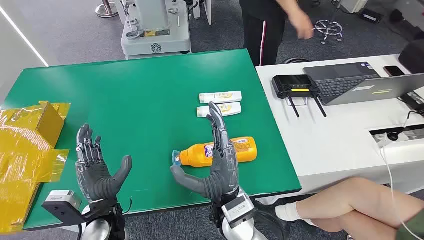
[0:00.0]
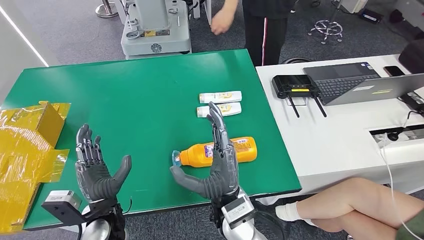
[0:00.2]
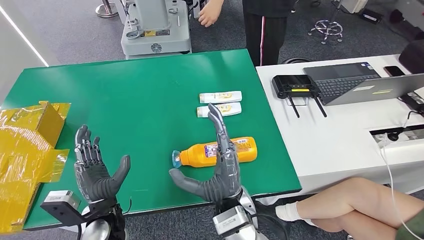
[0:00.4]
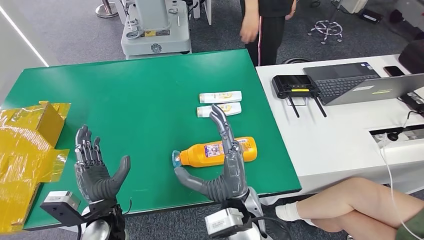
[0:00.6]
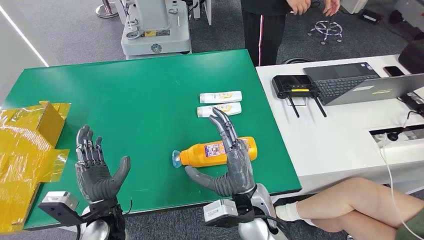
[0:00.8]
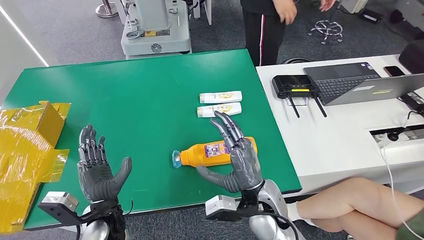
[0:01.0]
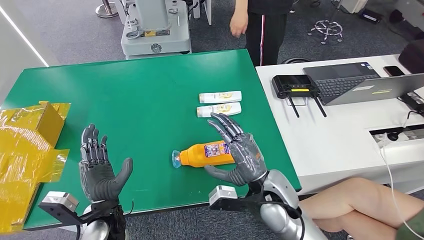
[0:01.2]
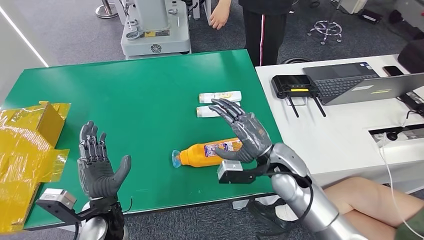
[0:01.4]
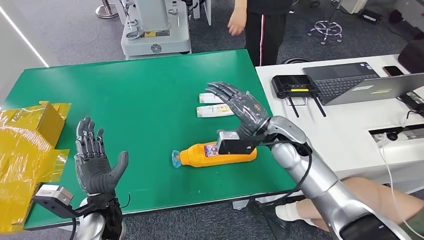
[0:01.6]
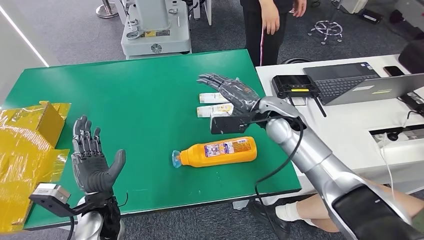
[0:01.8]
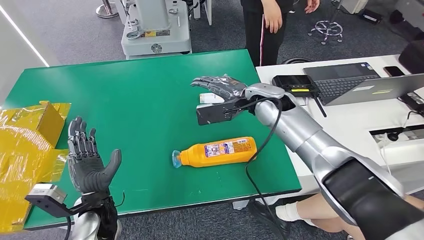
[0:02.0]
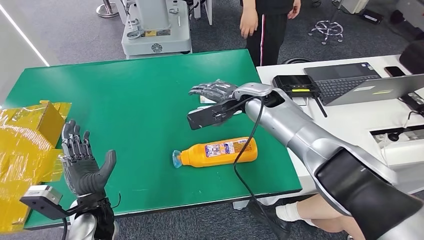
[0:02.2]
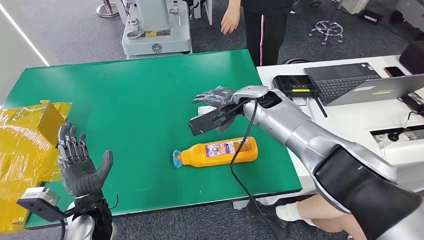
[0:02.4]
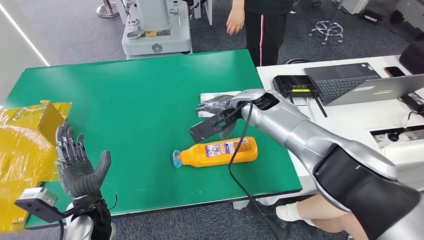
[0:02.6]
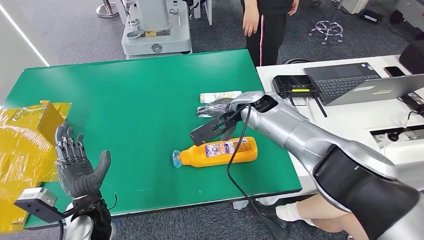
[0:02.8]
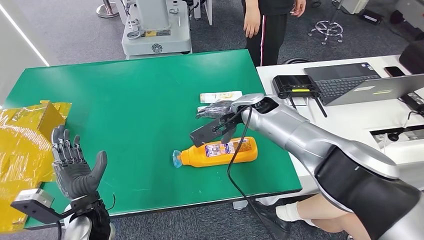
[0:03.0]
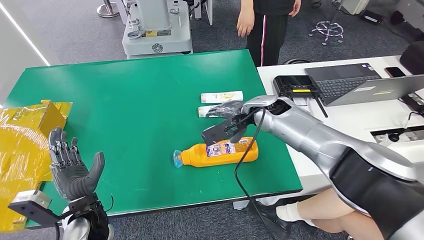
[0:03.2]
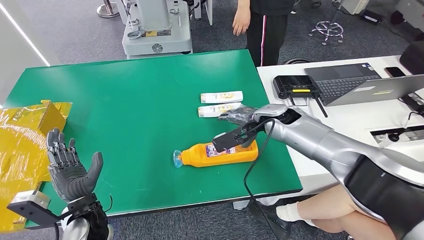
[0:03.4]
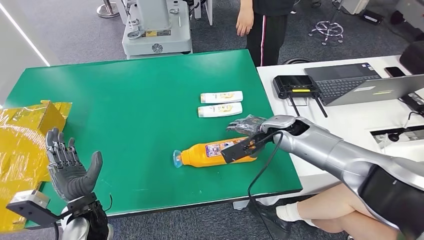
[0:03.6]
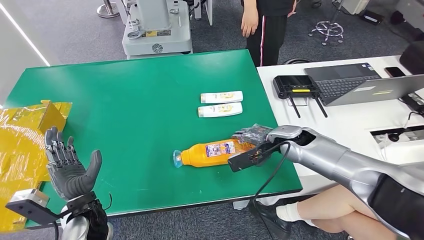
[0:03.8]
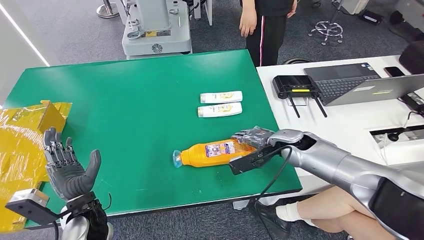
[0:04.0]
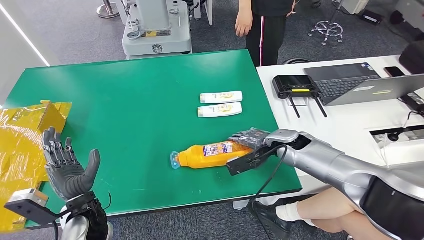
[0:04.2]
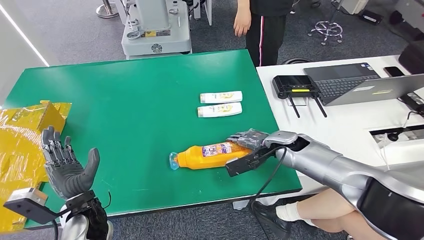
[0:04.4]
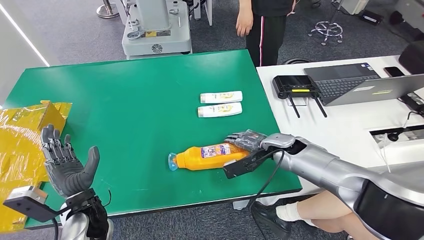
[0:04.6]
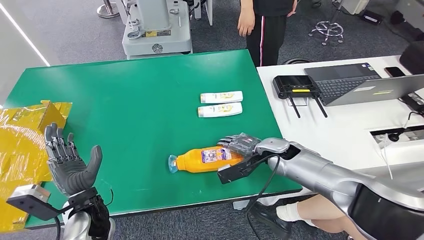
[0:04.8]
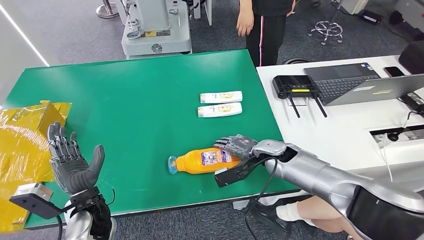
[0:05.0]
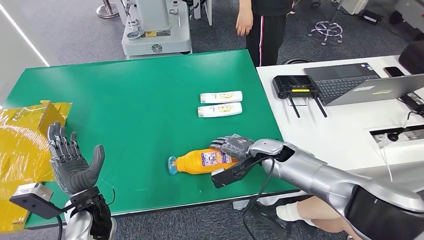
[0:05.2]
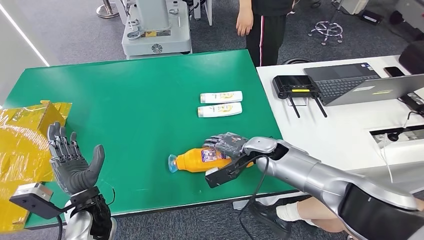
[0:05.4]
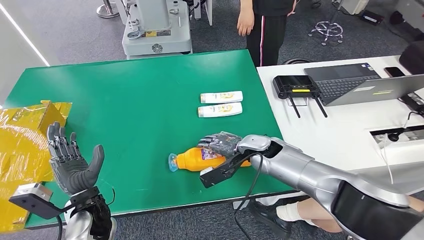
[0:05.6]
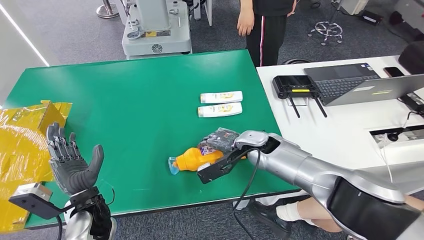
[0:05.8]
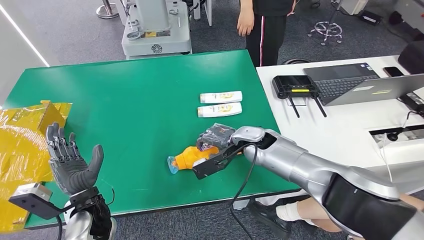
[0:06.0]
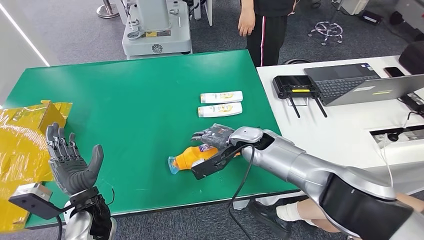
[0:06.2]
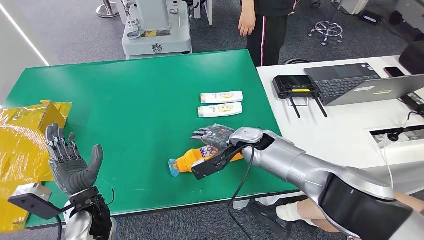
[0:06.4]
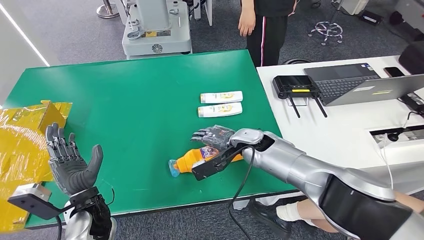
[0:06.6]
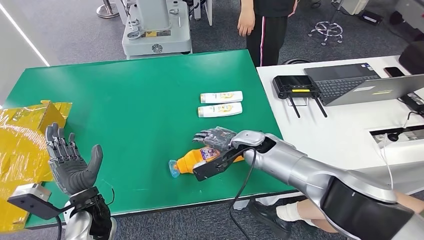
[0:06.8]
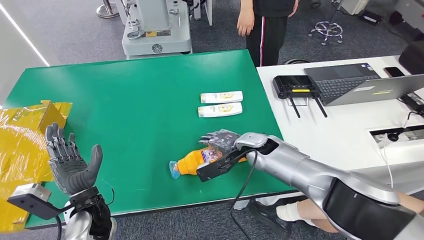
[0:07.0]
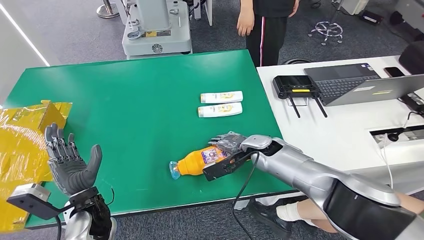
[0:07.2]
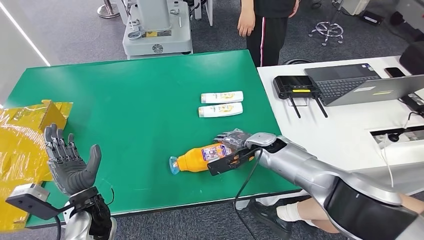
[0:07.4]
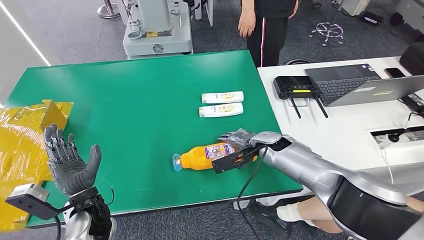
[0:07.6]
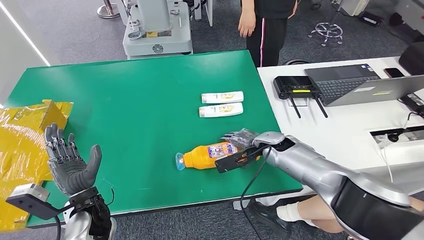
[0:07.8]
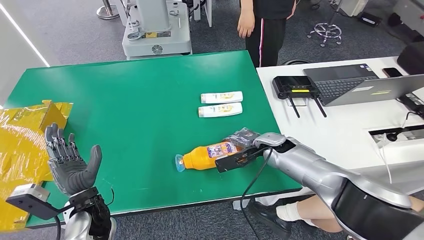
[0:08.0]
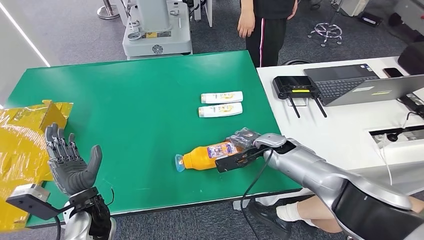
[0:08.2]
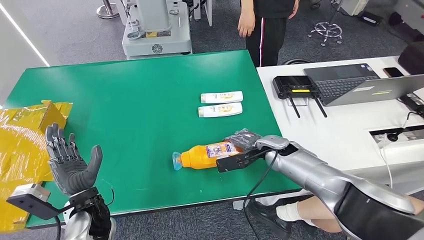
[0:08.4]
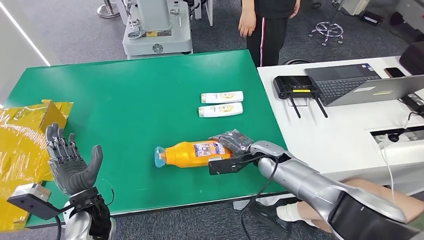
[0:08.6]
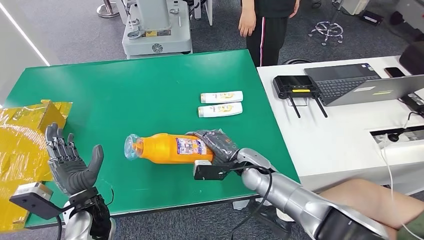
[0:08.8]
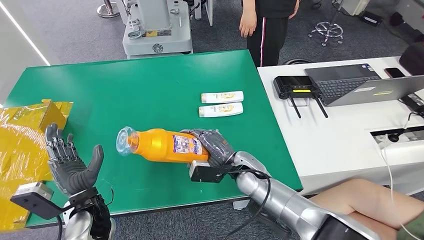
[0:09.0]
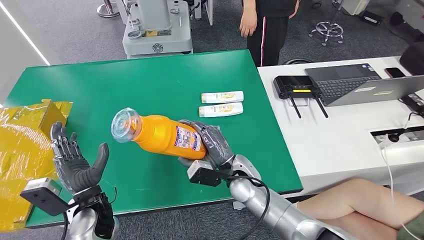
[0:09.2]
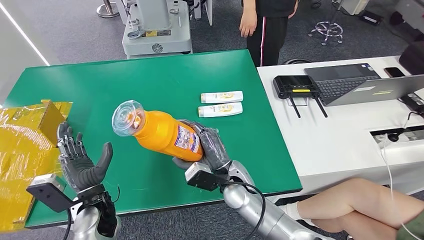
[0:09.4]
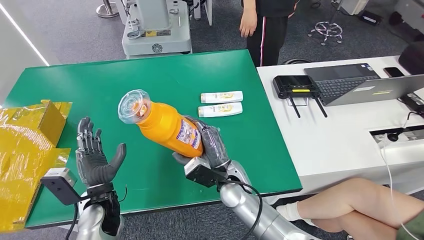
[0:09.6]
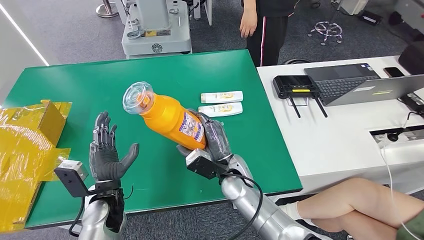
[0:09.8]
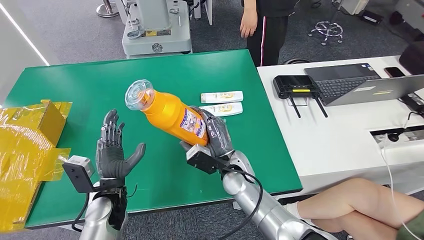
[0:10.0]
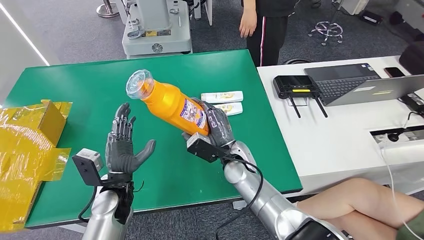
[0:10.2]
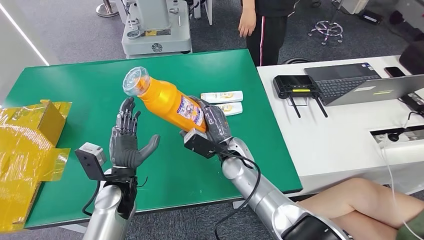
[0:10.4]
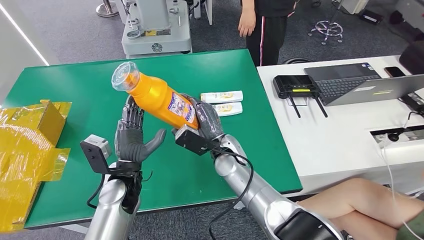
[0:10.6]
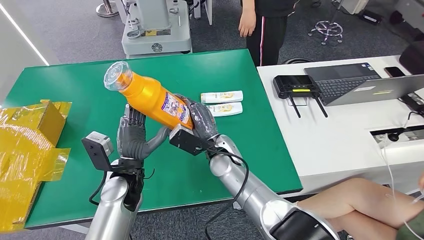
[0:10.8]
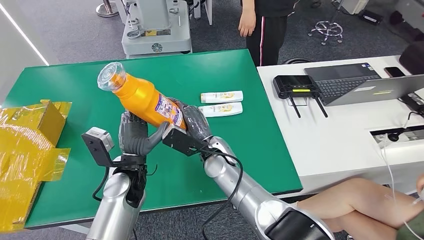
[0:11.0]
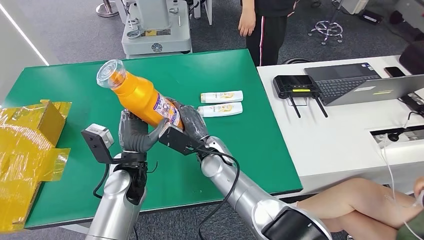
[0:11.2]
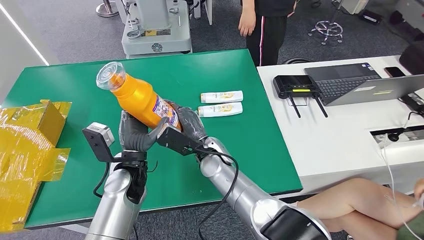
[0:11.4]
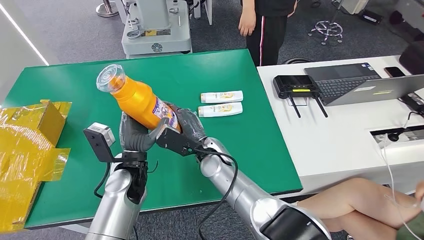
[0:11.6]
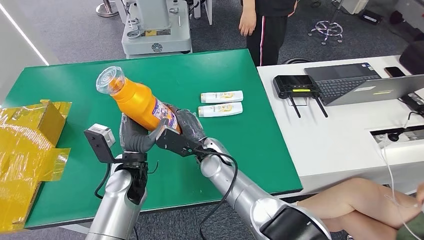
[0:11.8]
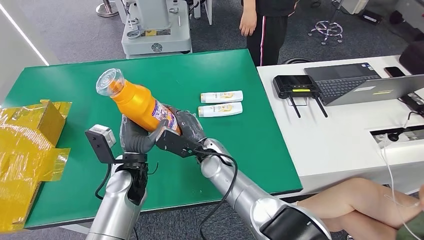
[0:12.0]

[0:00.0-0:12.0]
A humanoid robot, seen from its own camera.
Step, 0:00.0 to 0:09.4: Pick up the bottle from the table.
0:03.0 to 0:04.4: The right hand goes some 15 cm to the right, downward and backward.
0:04.4 to 0:06.0: The right hand shifts roughly 10 cm to the left.
0:06.0 to 0:07.6: The right hand goes about 5 cm to the right.
0:07.6 to 0:09.0: The right hand is displaced to the left and backward by some 15 cm.
0:10.4 to 0:12.0: The right hand is displaced to the left by some 5 cm.

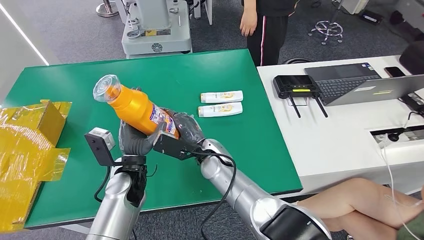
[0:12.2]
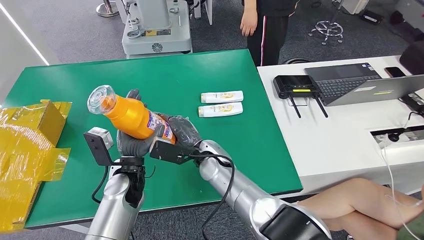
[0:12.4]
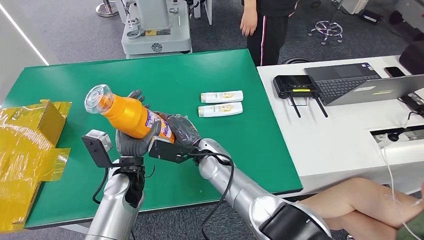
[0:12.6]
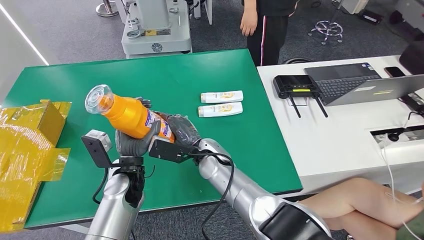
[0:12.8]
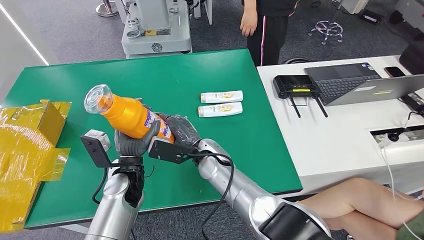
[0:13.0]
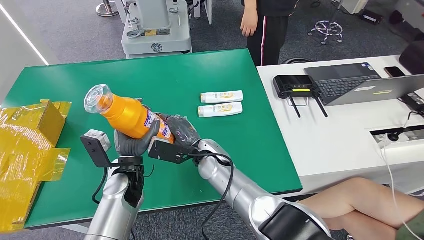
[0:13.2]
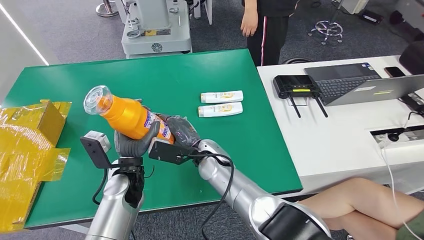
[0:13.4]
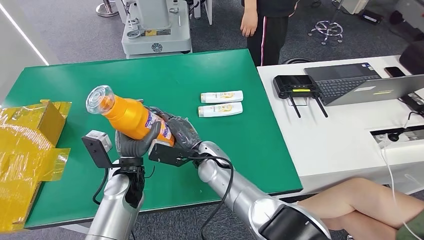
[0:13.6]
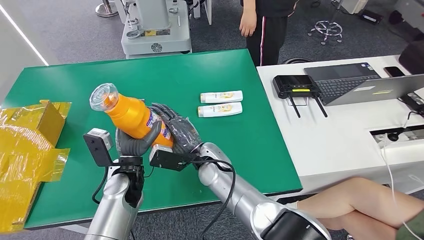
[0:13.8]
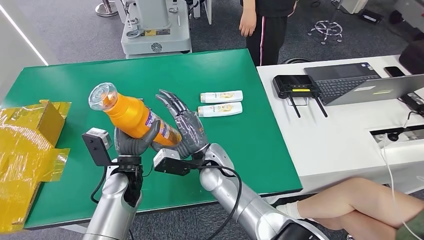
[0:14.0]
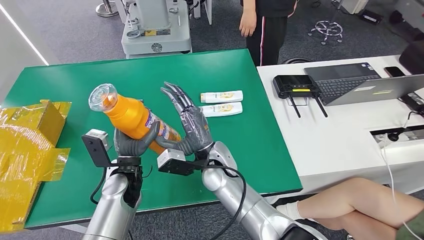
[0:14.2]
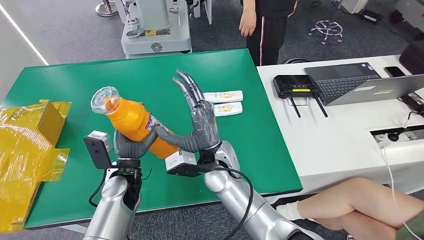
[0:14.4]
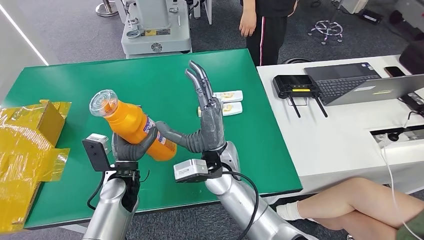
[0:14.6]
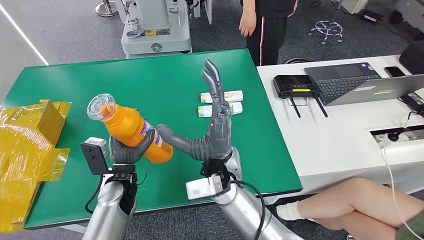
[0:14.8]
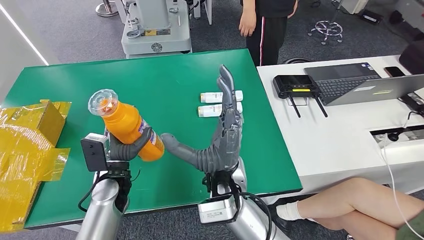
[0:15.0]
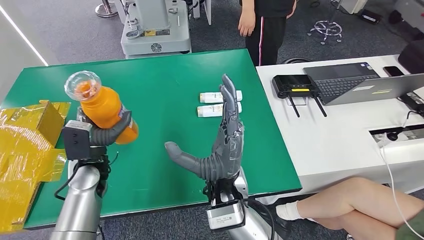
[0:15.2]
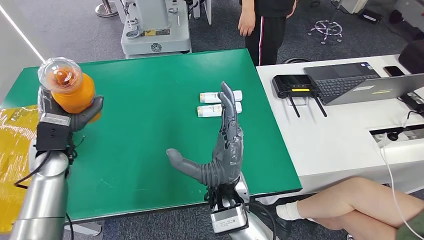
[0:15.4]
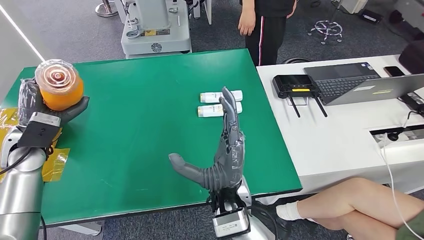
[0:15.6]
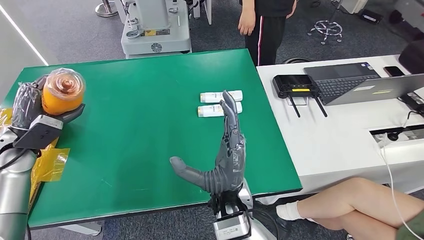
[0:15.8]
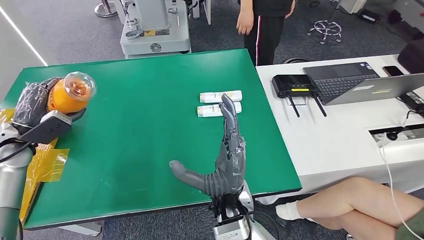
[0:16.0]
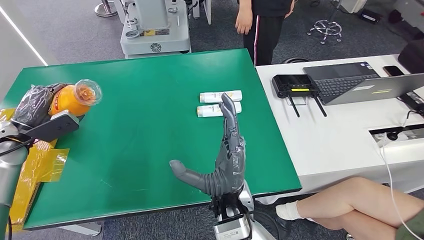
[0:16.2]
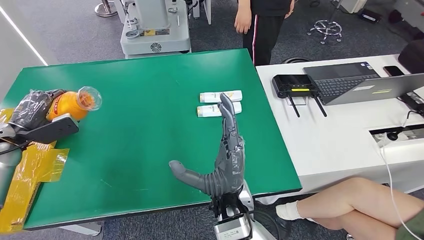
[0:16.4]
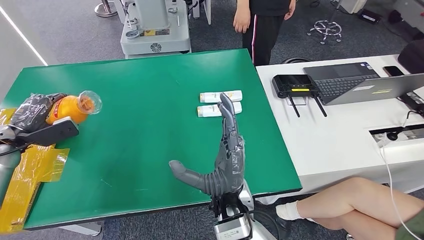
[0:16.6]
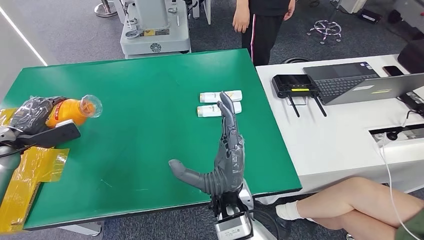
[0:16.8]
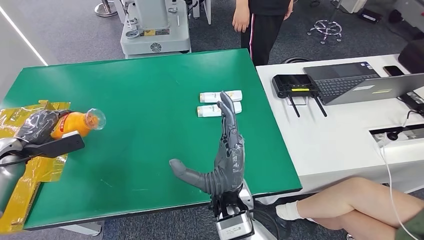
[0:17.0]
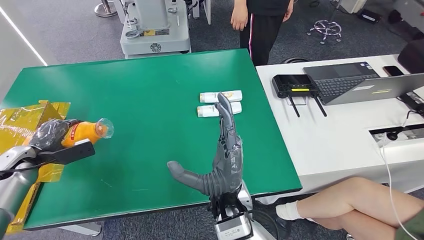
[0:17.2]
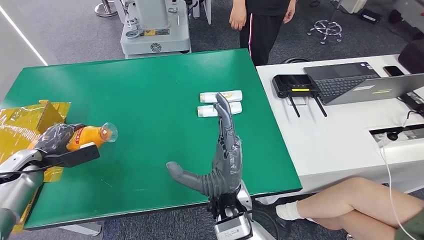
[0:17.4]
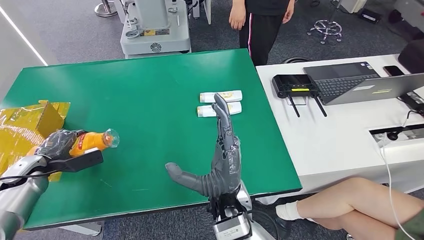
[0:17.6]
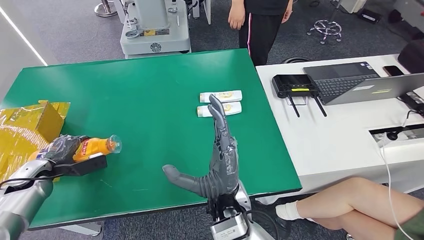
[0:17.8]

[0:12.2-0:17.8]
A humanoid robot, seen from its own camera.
0:12.2 to 0:13.6: The hands move only a little.
0:13.6 to 0:15.0: The right hand moves upward and backward, approximately 10 cm.
0:15.0 to 0:16.4: The right hand ends up about 5 cm from where it was, while the left hand moves to the left, about 25 cm.
0:16.4 to 0:17.8: The left hand goes about 10 cm downward.
